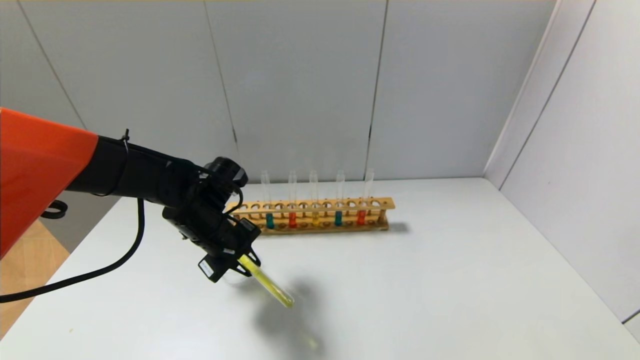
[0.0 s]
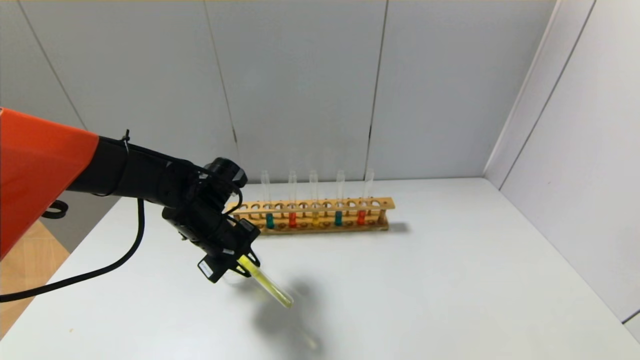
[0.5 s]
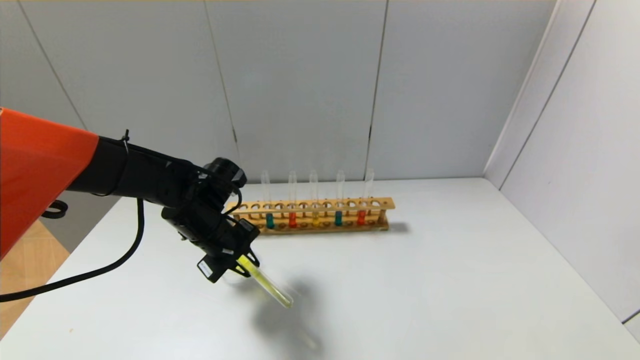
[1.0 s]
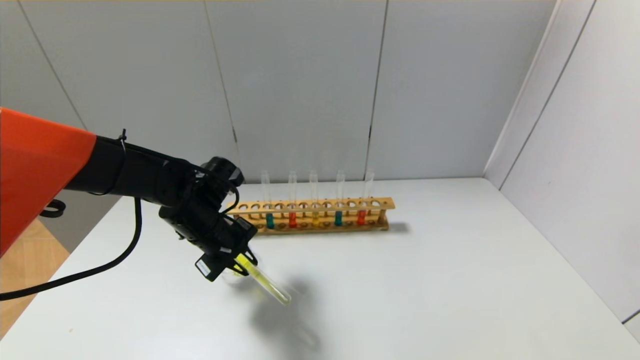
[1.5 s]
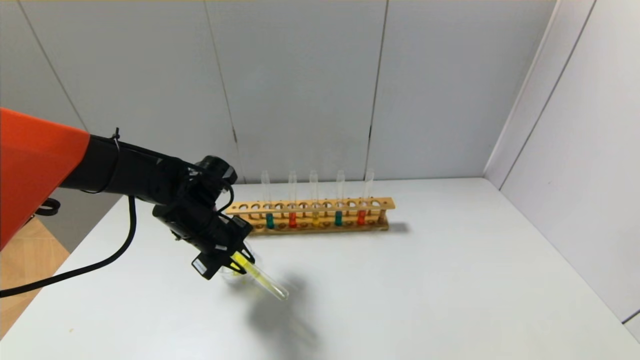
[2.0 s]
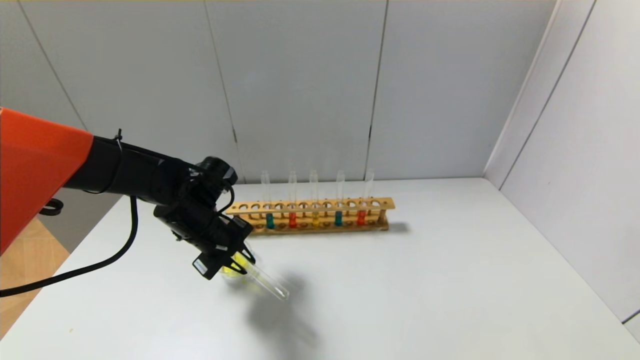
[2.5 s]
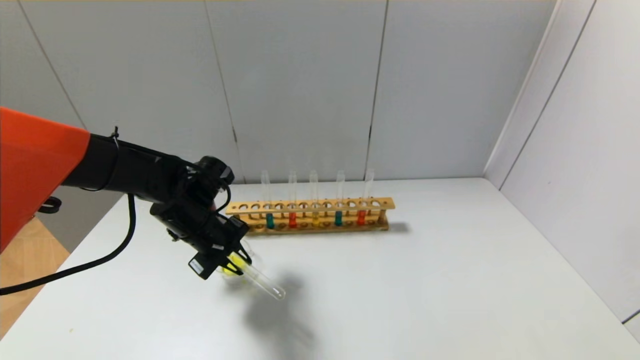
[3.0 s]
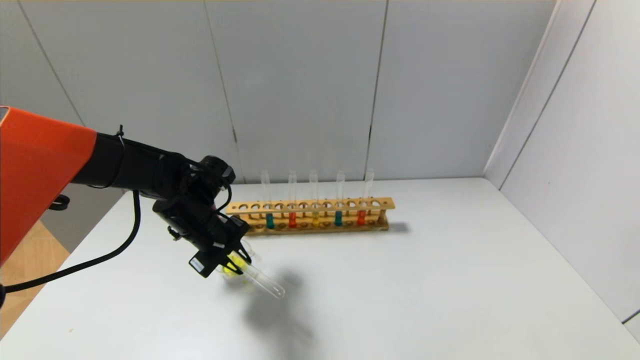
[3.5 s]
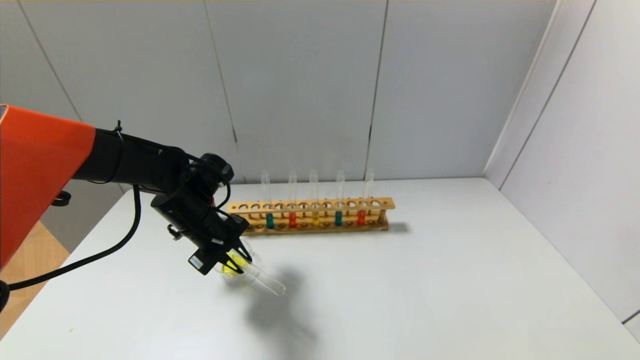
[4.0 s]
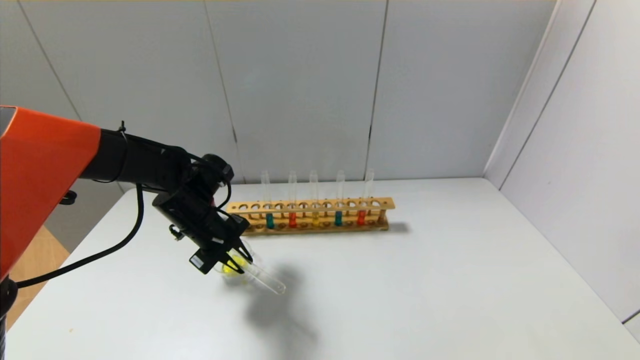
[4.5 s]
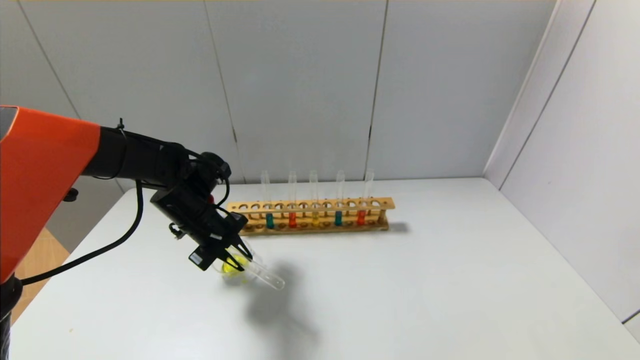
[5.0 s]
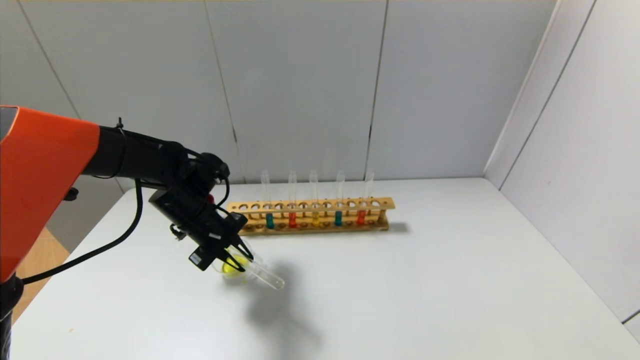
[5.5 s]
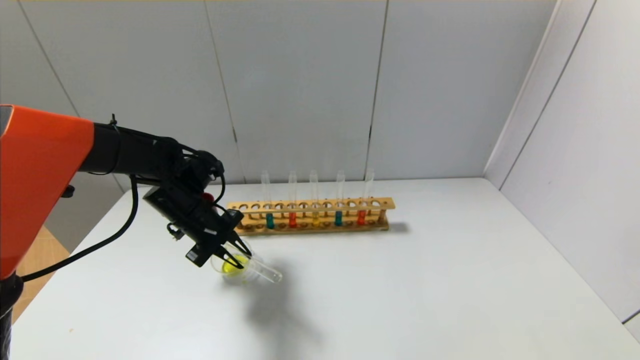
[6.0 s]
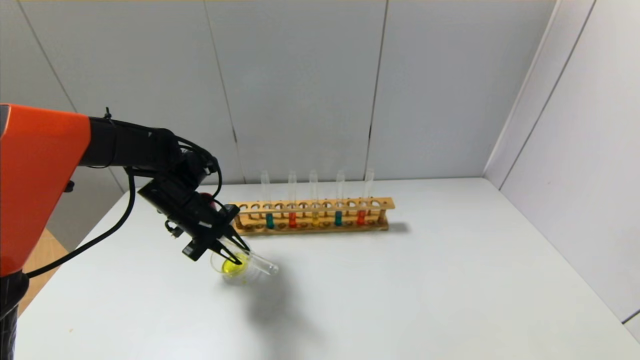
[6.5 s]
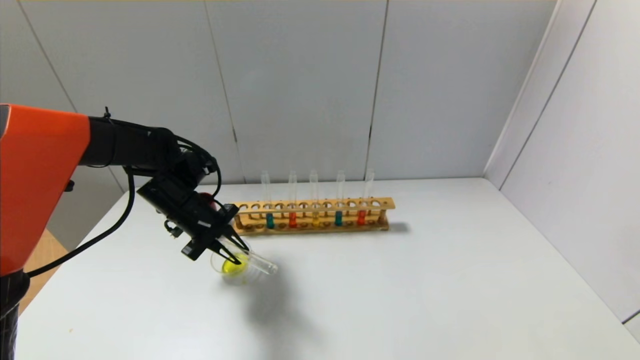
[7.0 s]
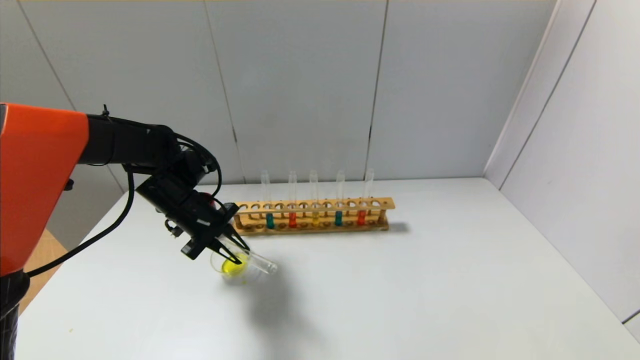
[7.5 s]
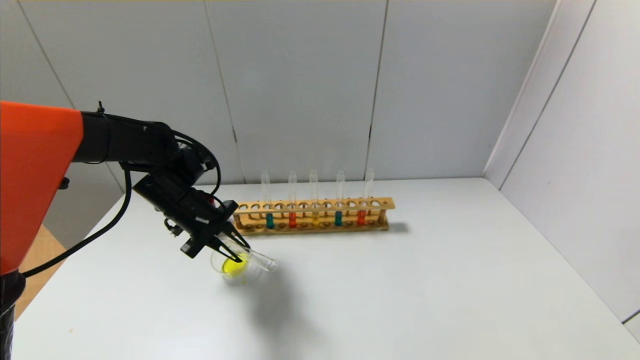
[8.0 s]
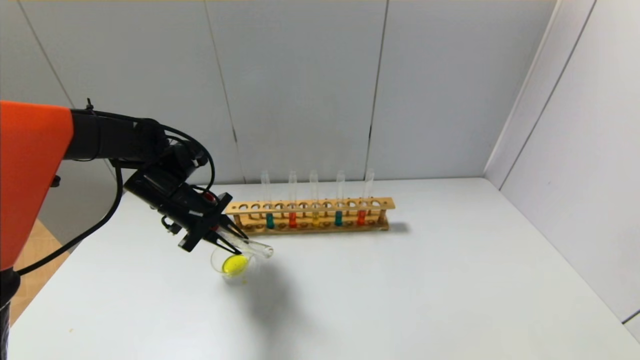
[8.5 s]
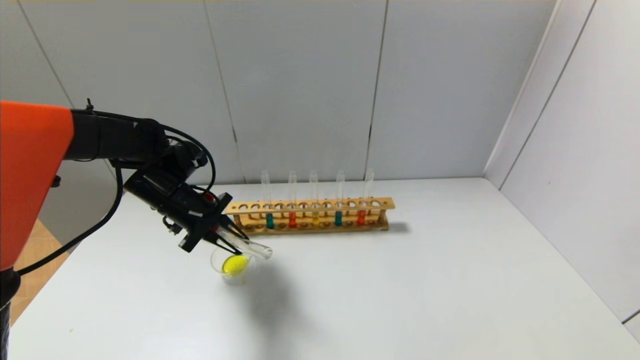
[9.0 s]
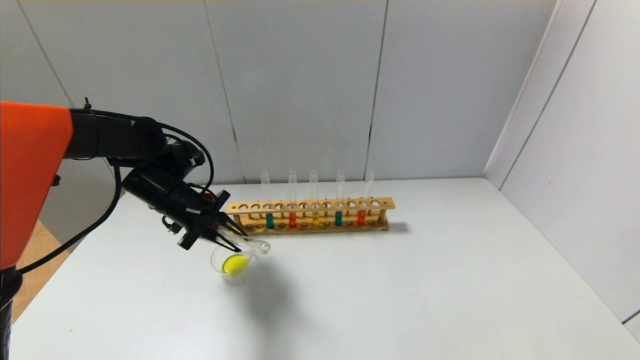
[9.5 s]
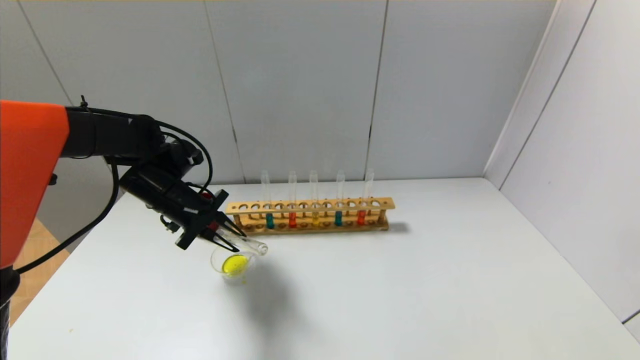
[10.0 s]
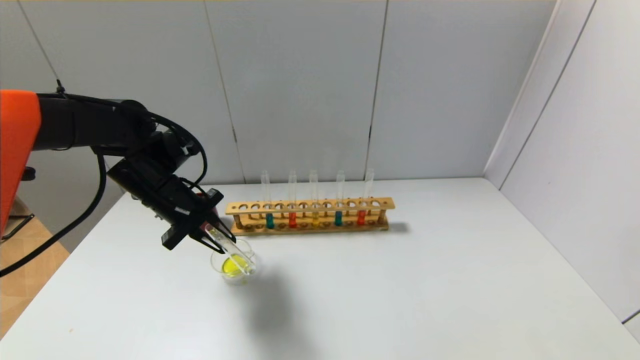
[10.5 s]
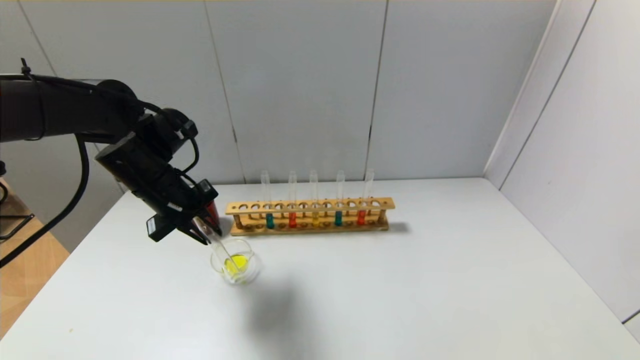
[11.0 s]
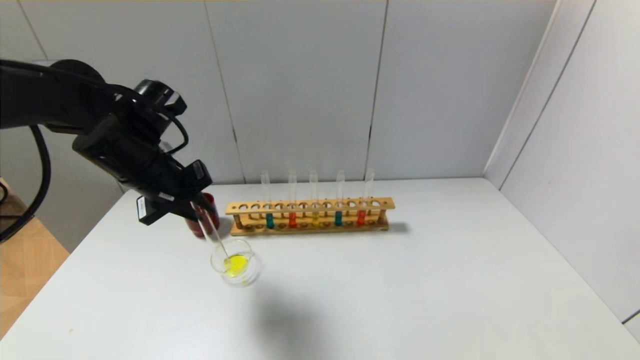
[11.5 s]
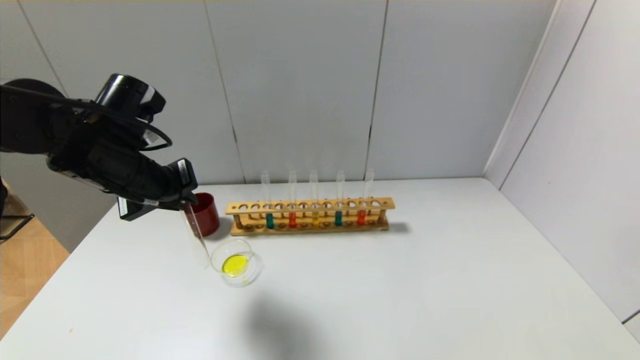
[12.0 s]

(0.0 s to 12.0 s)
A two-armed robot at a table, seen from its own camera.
Step, 0.0 s - 10.0 s: Pour the yellow reagent into the graduated cylinder with the left gripper.
0.0 s - 6.0 s: The grippers make only small movements.
6.0 s - 10.0 s: The grippers move only a little.
10.0 s - 12.0 s: The left gripper goes about 10 cm upward and backward.

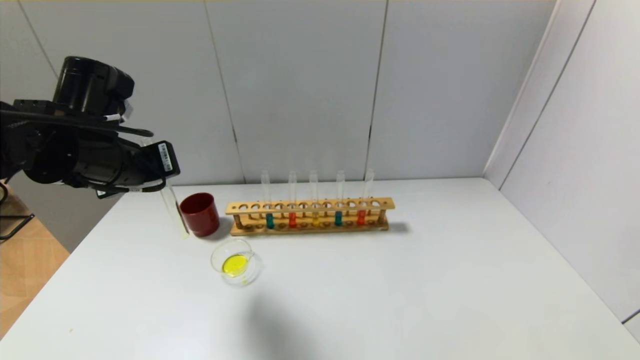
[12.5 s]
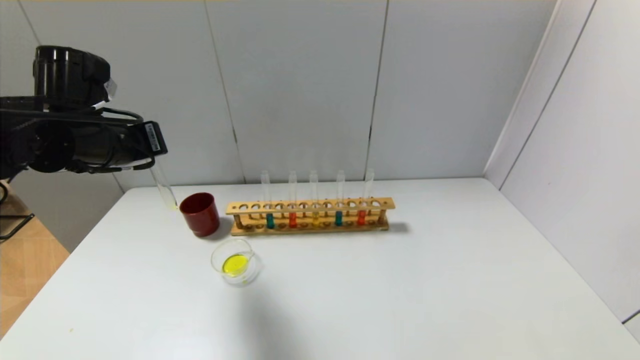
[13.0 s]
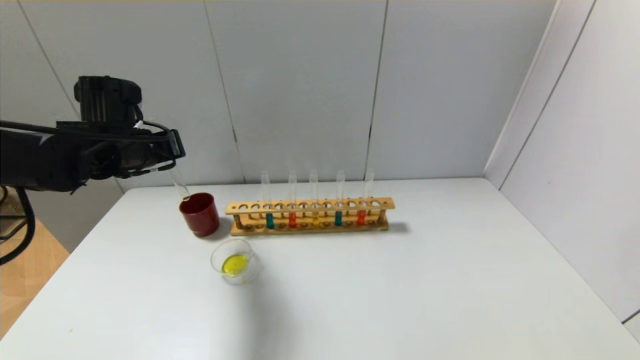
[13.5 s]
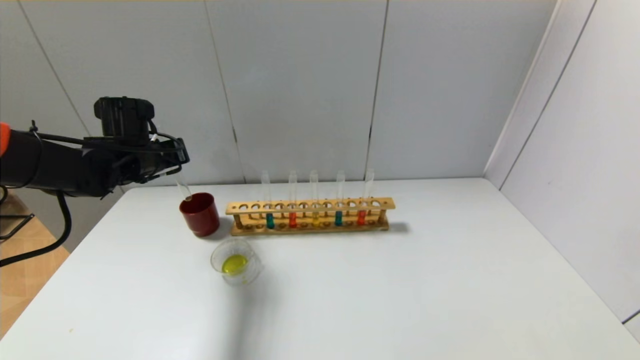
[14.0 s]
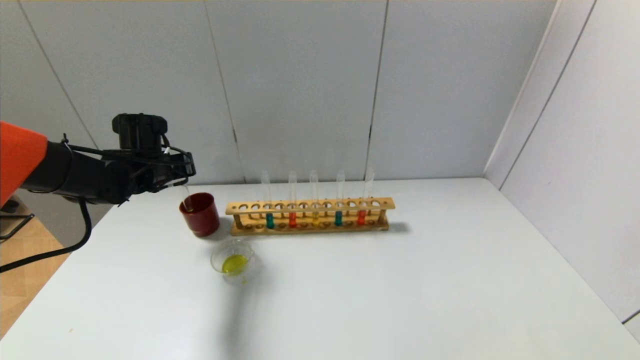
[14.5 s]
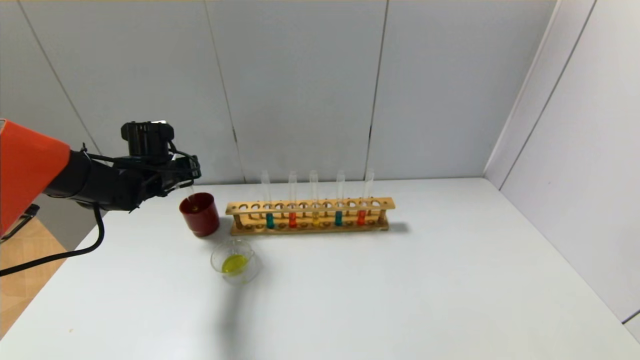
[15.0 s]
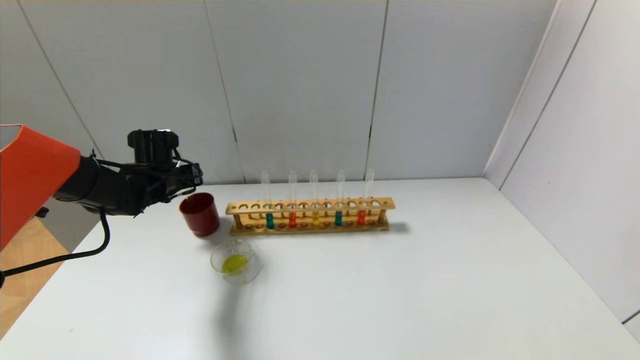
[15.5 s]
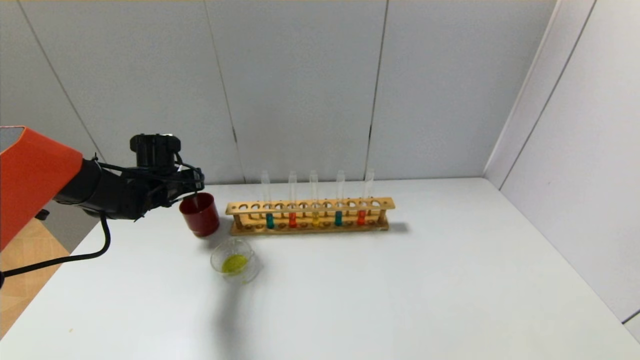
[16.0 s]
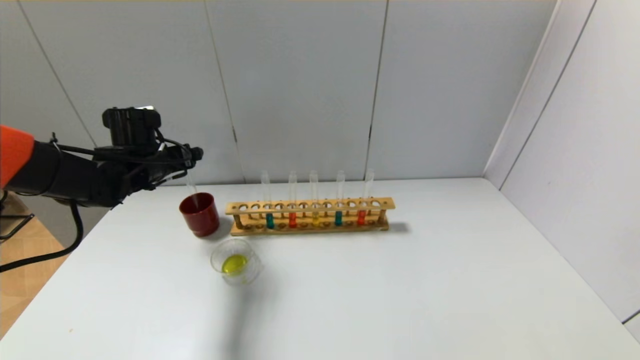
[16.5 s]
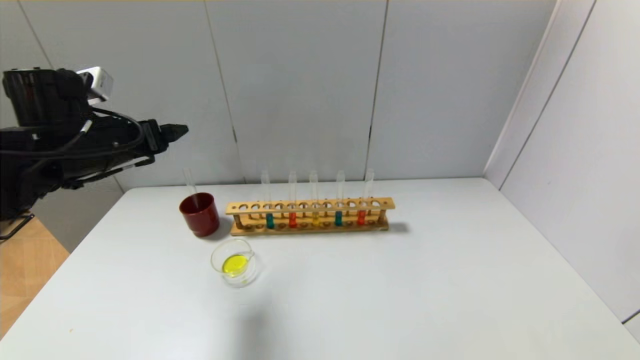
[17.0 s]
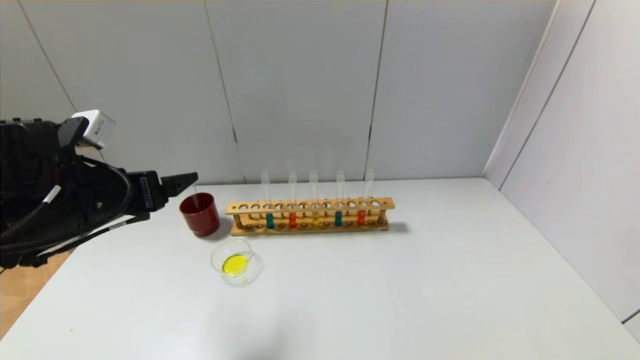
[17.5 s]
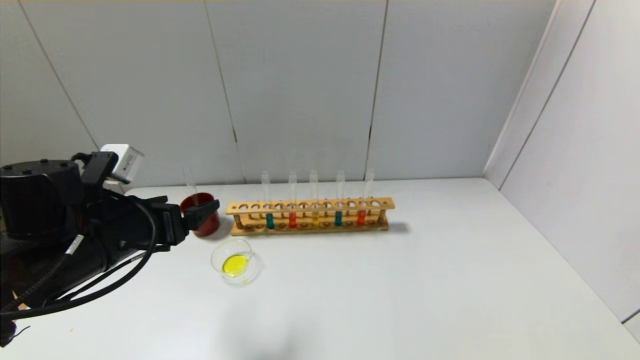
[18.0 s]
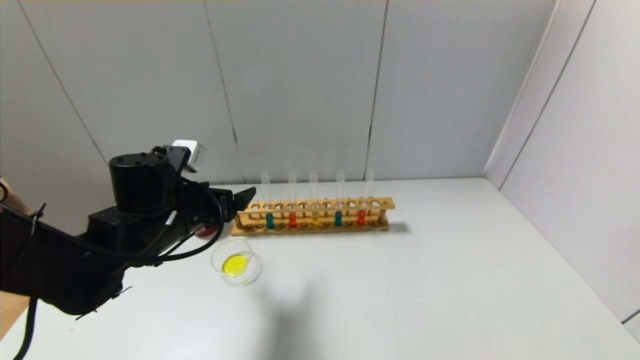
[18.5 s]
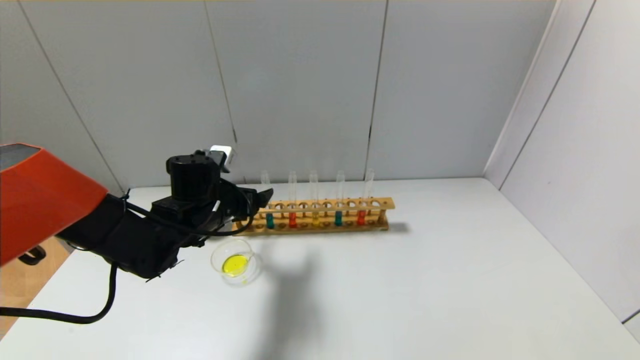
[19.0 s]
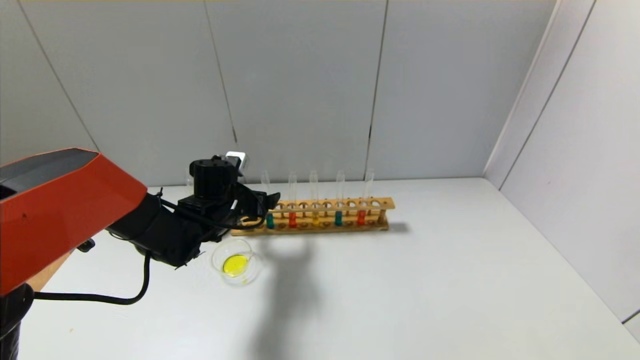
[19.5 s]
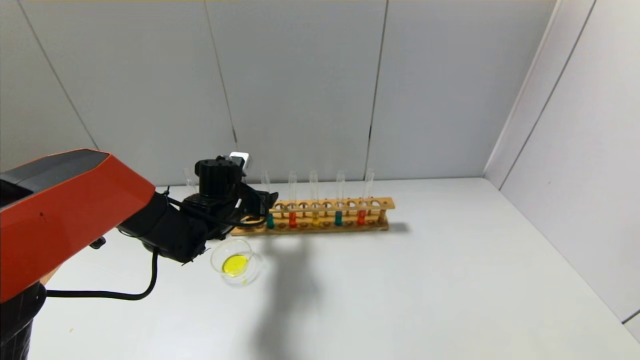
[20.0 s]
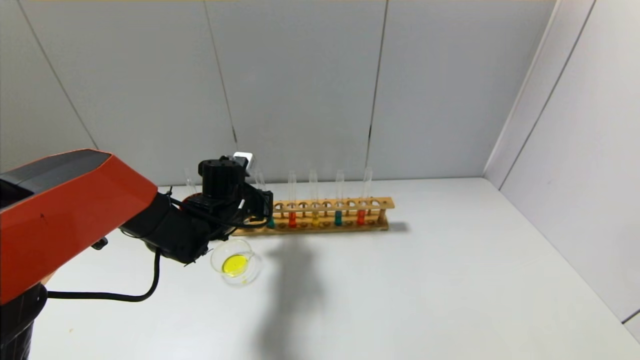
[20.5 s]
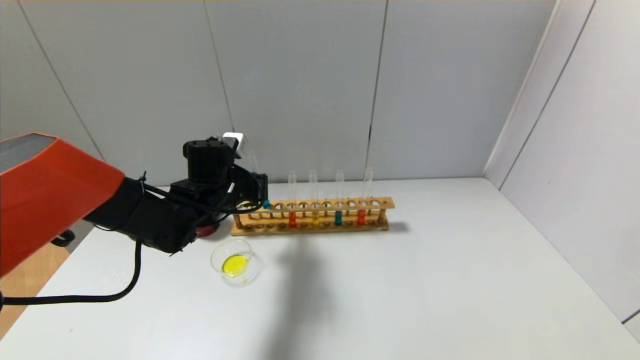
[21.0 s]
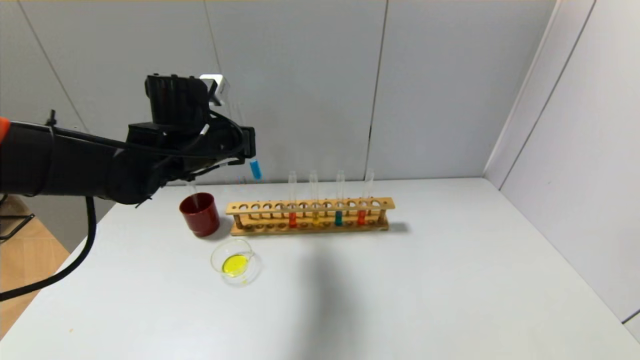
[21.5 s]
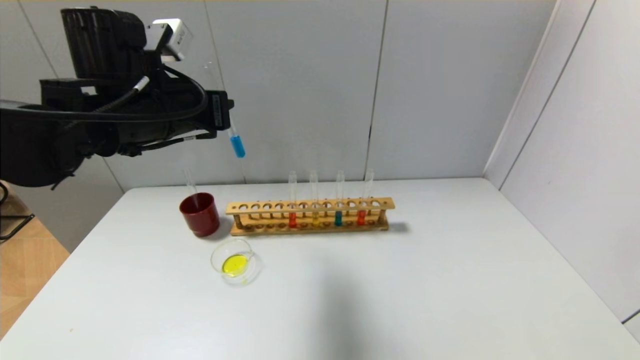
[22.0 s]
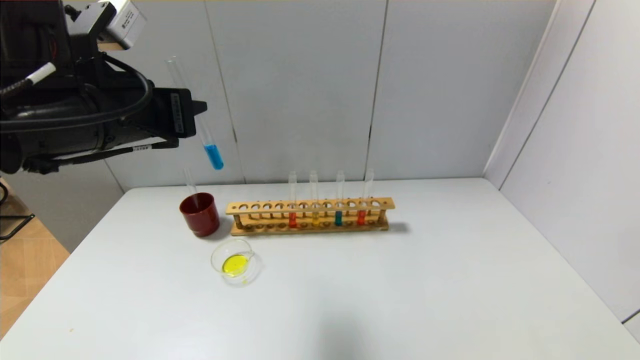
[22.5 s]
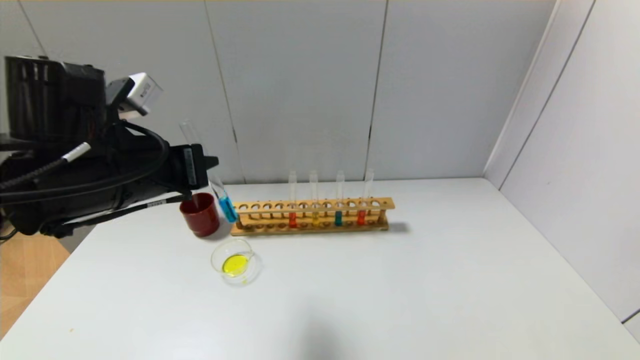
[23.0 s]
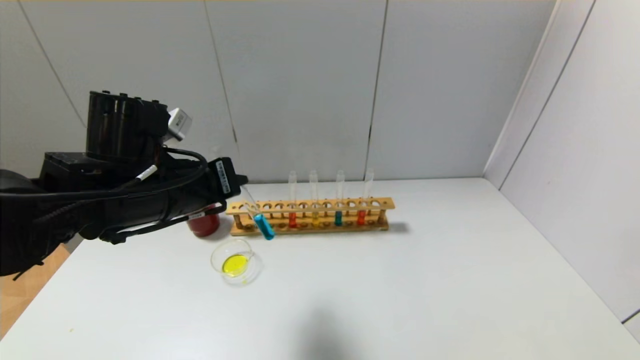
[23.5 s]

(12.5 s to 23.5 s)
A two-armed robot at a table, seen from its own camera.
Step, 12.5 s - 16.0 s: Place the test tube into the brown cup with the left gripper.
Step, 16.5 s - 20.5 s: Grasp the blue reagent with the left gripper.
12.5 s - 14.5 s: The left gripper is displaced forward and downward by roughly 15 cm.
14.5 s - 16.0 s: The left gripper opens.
16.0 s - 18.0 s: The left gripper travels backward by approximately 20 cm, and opens its fingers.
18.0 s - 20.0 s: The left gripper moves forward, downward and to the right, about 20 cm.
20.0 s - 21.5 s: The left gripper travels upward by approximately 15 cm, and closes up.
21.5 s - 23.5 s: The left gripper goes some 10 cm backward.
